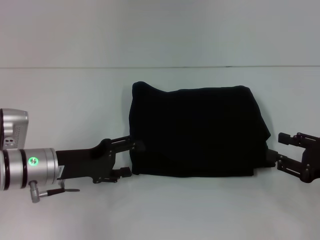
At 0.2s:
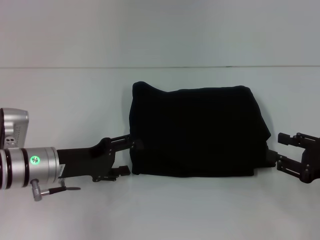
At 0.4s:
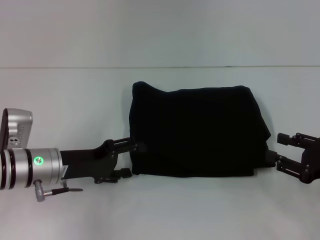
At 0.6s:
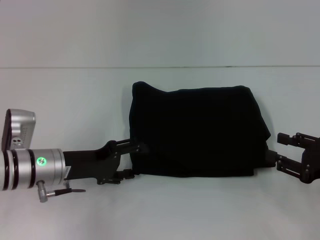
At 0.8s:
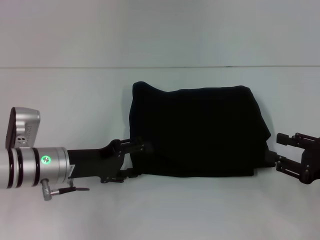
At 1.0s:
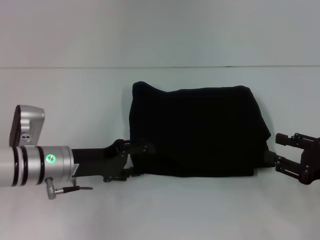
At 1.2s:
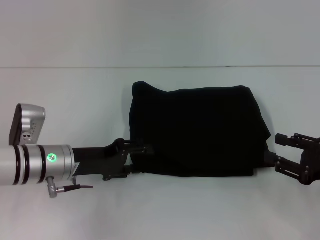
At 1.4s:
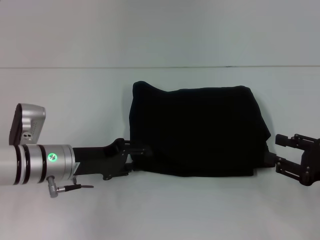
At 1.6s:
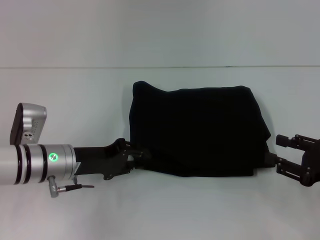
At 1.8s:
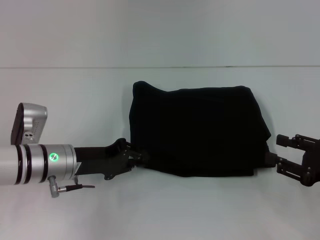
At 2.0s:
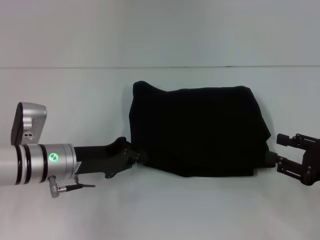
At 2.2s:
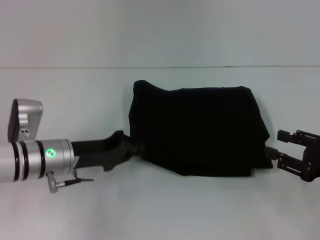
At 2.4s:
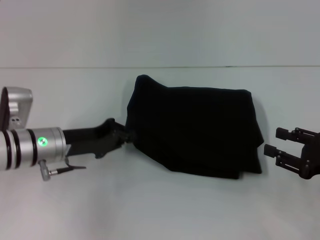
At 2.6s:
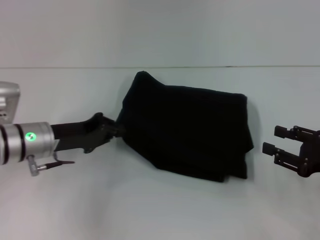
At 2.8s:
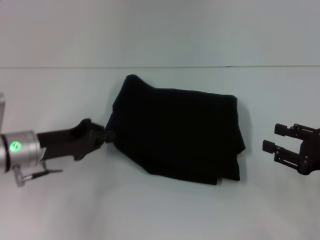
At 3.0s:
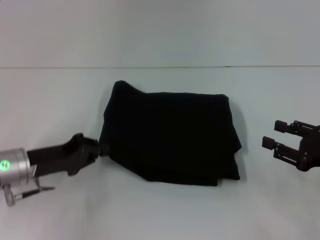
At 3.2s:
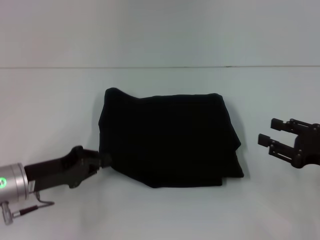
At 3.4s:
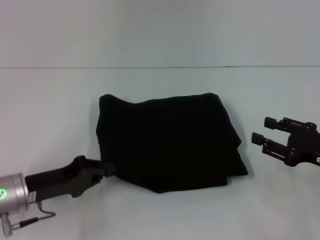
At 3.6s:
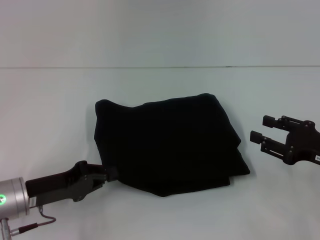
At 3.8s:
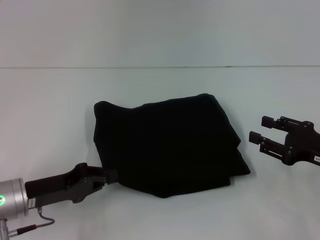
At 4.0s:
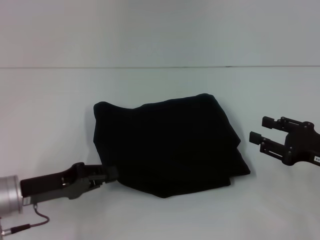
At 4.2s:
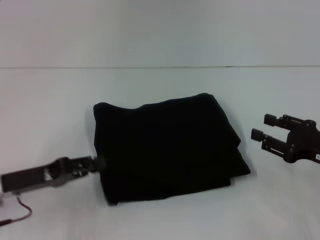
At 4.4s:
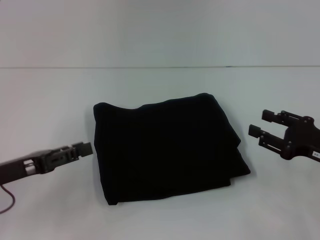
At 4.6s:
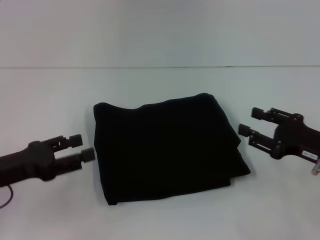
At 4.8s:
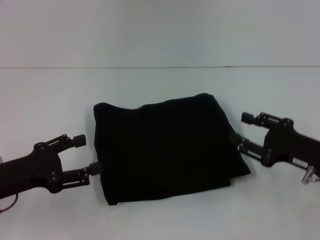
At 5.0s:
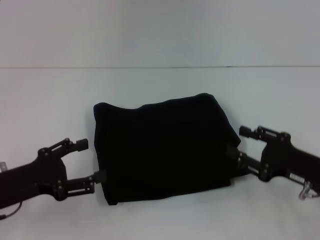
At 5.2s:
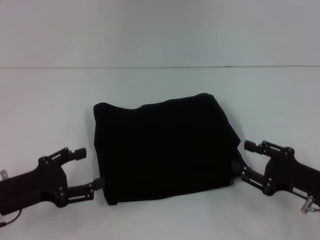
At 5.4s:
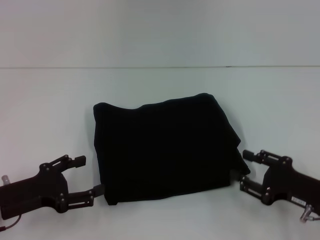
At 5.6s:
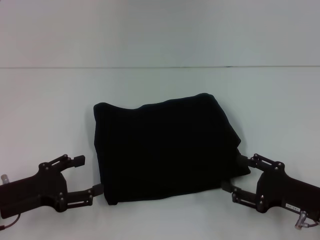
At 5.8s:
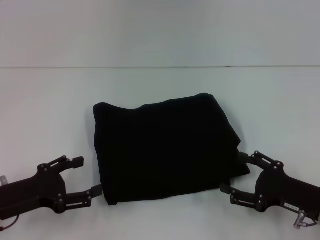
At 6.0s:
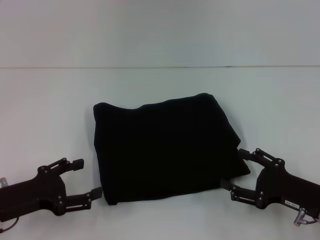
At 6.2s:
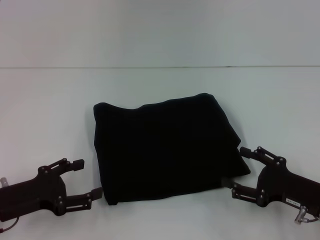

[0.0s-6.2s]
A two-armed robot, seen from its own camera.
0.0s to 1.6s: The left gripper closes.
1.6s to 3.2s: The left gripper travels to the left by roughly 5 cm, and closes its fingers.
3.2s to 4.6s: The left gripper moves approximately 5 cm, and opens its fingers.
4.6s to 6.2s: The left gripper opens up. Meanwhile the right gripper ends up approximately 5 cm from where it was.

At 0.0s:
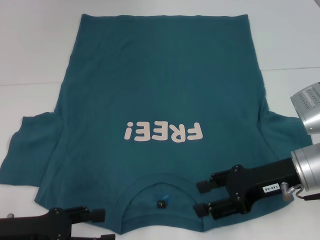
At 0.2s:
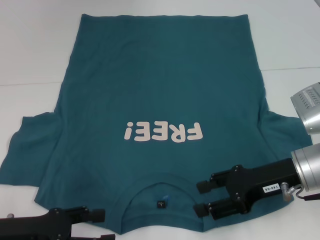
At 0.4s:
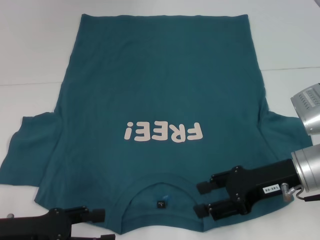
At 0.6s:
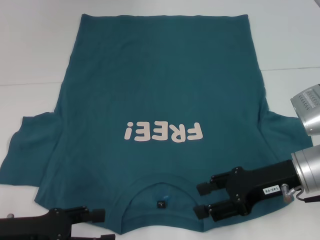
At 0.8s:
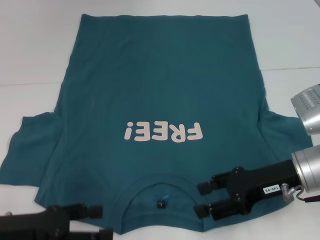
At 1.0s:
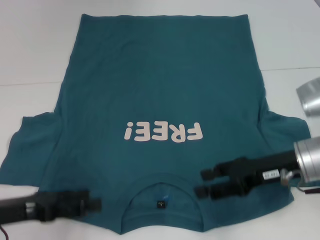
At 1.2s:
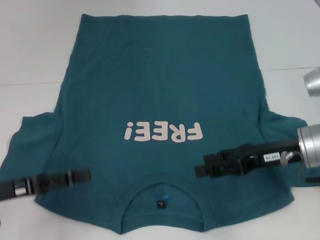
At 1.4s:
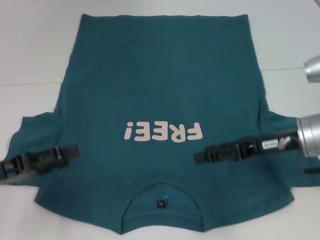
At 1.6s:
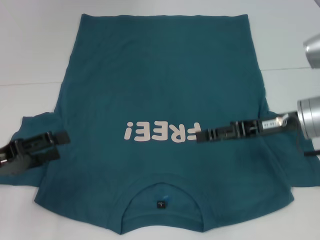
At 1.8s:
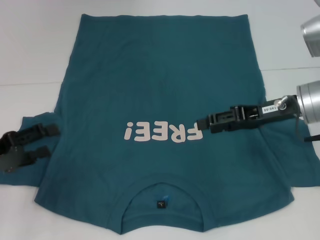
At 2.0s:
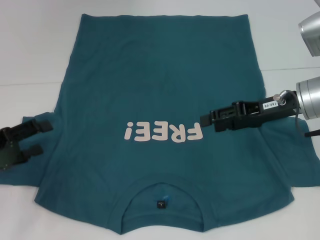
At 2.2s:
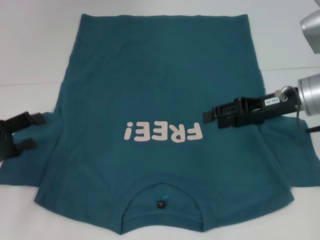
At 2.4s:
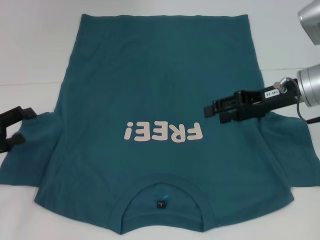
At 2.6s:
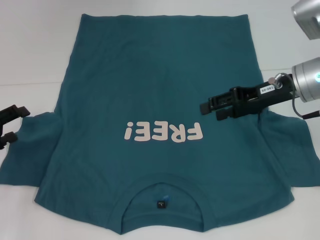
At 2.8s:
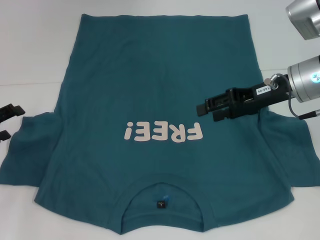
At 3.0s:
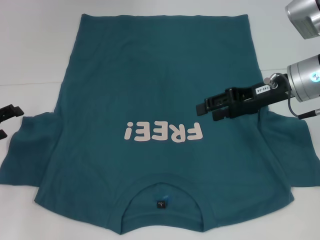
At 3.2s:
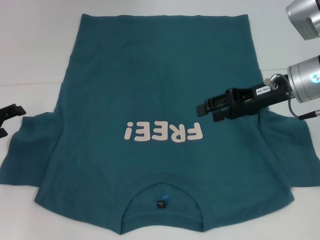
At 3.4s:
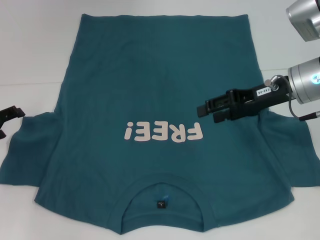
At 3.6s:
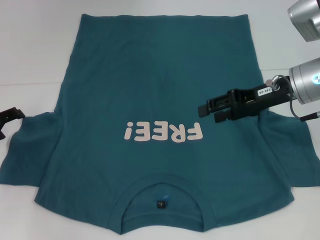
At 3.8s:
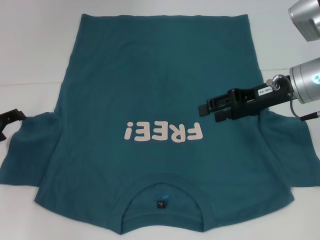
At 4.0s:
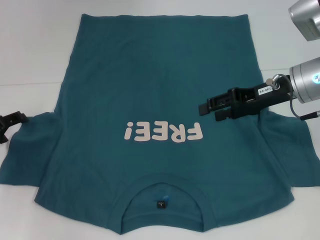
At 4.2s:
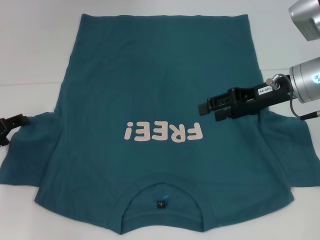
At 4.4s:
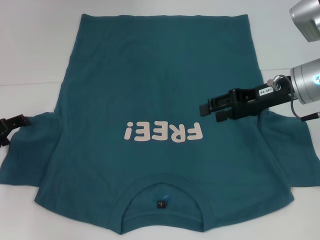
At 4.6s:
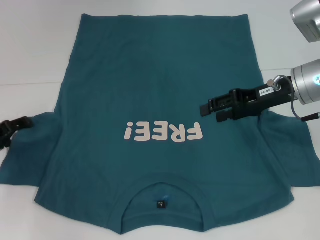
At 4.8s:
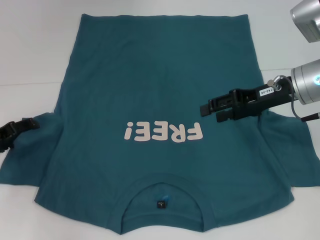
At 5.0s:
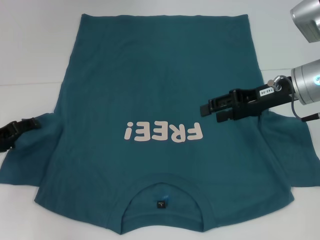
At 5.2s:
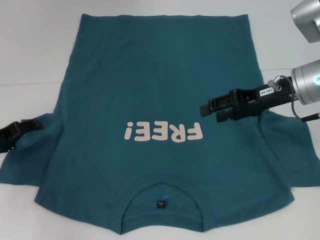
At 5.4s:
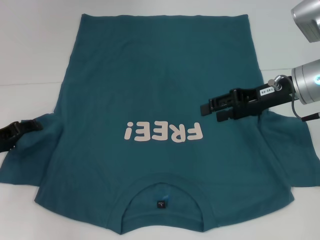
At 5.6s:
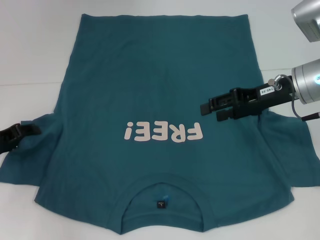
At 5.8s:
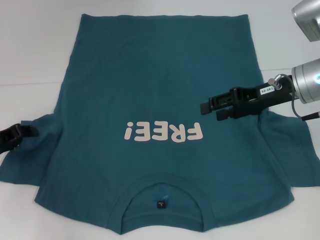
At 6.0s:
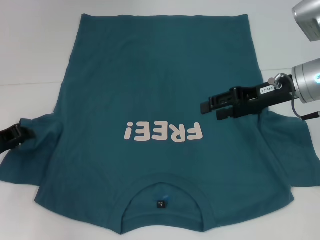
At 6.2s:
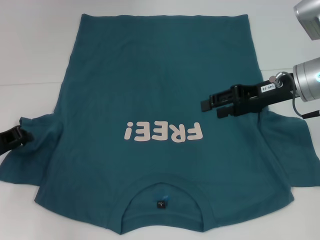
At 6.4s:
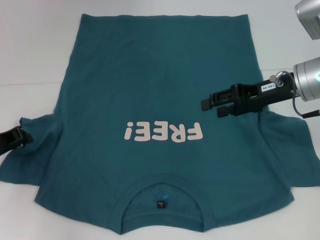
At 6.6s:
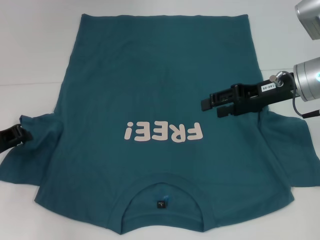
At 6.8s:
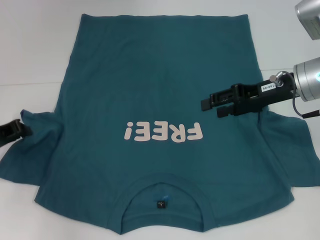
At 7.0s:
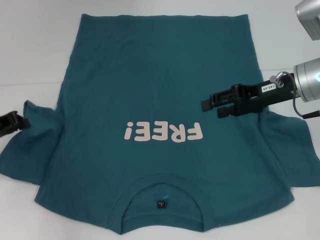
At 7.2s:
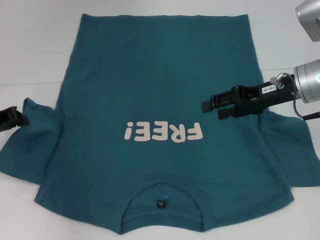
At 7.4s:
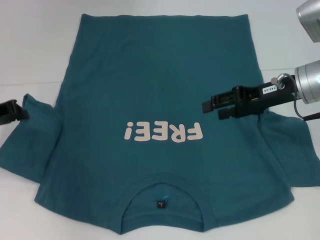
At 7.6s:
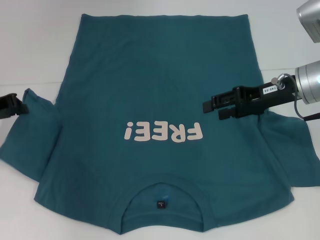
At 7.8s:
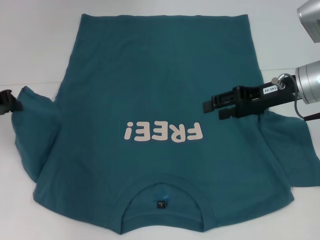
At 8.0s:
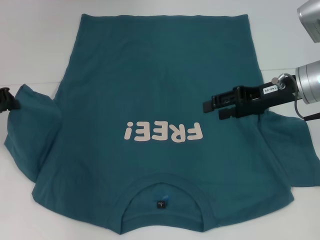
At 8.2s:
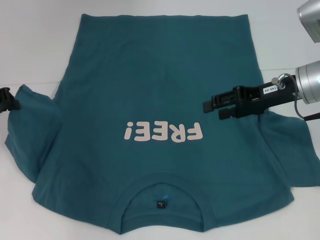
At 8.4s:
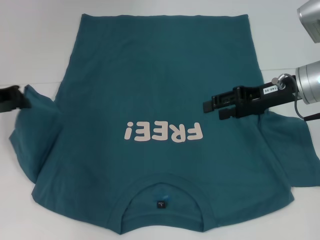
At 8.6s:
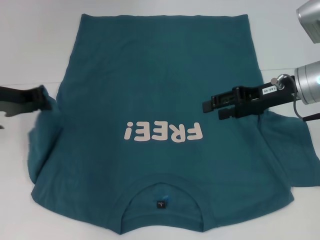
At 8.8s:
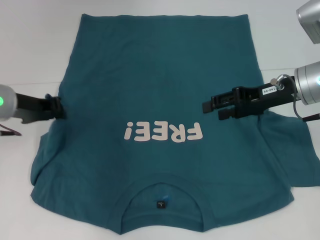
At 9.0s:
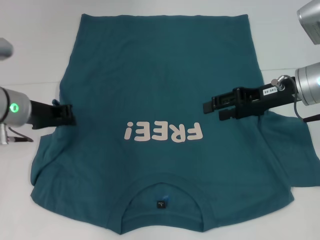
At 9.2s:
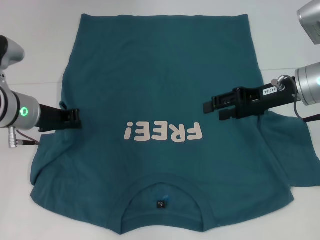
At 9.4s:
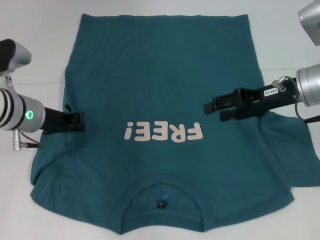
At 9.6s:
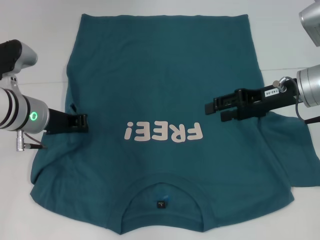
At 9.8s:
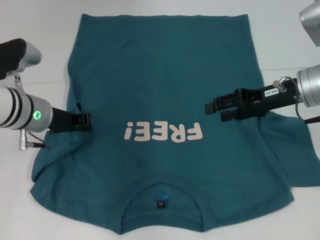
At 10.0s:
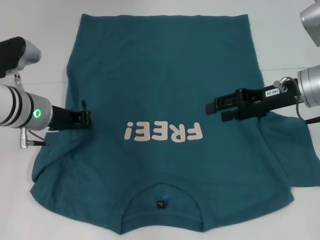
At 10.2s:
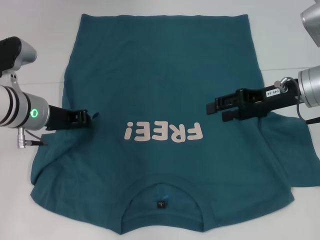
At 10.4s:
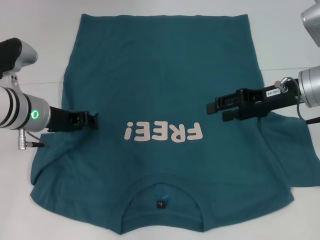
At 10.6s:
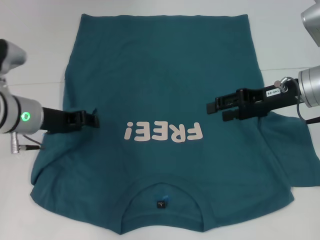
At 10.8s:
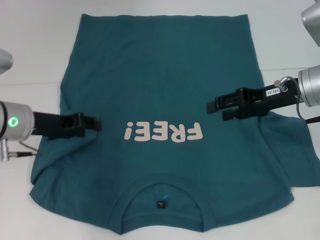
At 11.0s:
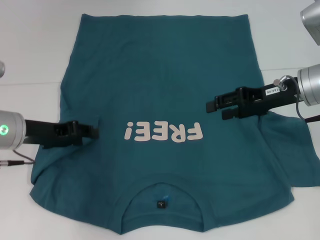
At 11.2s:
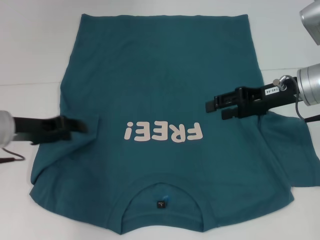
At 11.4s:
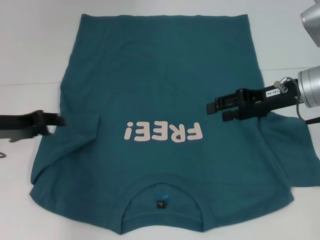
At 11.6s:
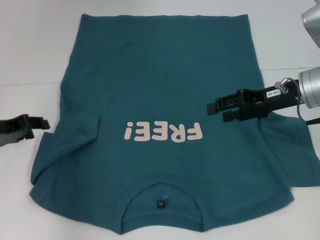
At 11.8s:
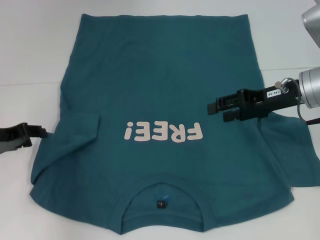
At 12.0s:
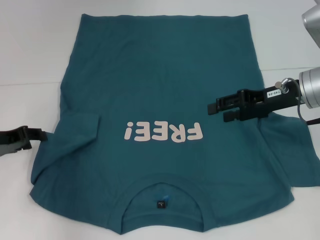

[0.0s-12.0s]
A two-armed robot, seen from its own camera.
0.0s to 1.6s: The right gripper shifts approximately 5 cm forward. The left gripper moves roughly 5 cm.
1.6s to 3.0s: The right gripper shifts by roughly 5 cm. The left gripper moves forward, approximately 5 cm.
3.0s to 4.4s: There are only small adjustments of the grippers.
4.4s to 6.0s: The left gripper closes.
6.0s to 7.6s: The left gripper heads upward, covering about 5 cm, and closes.
7.6s to 9.0s: The left gripper goes roughly 10 cm to the right.
9.0s to 10.4s: The grippers make only small movements.
10.4s to 12.0s: The left gripper moves to the left, roughly 10 cm.

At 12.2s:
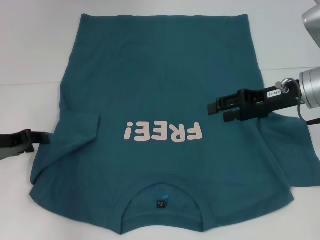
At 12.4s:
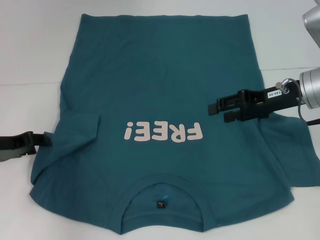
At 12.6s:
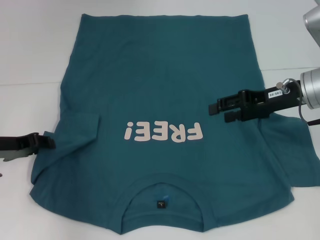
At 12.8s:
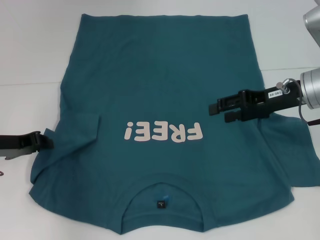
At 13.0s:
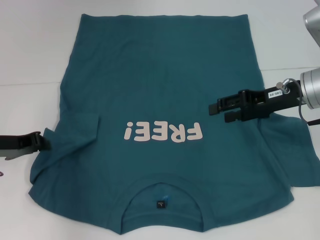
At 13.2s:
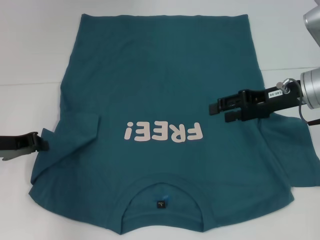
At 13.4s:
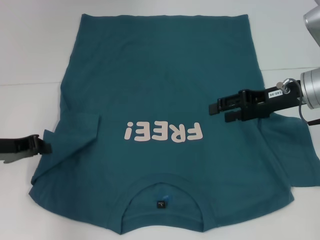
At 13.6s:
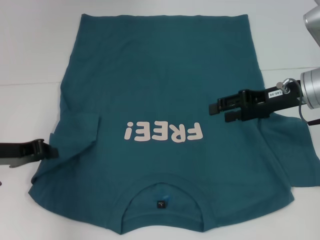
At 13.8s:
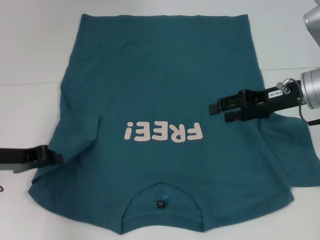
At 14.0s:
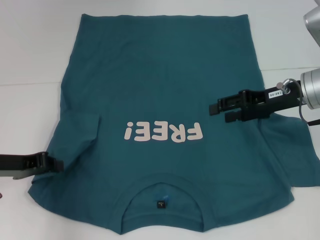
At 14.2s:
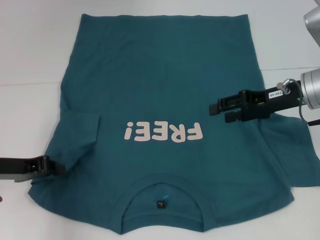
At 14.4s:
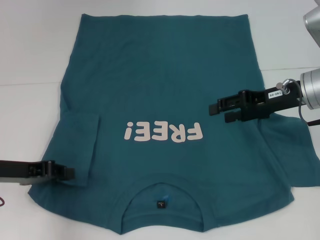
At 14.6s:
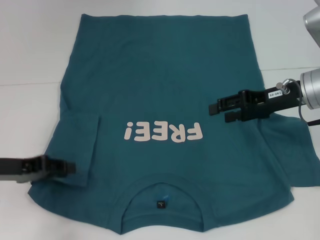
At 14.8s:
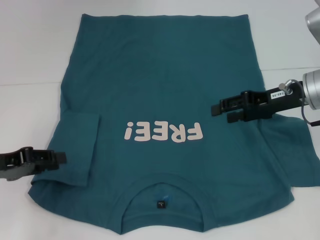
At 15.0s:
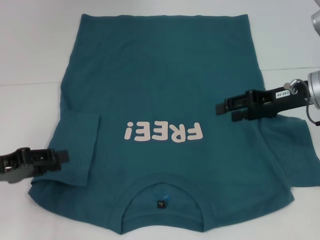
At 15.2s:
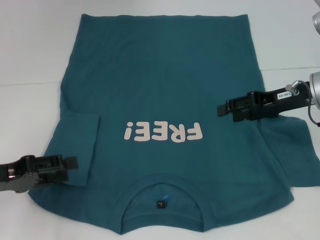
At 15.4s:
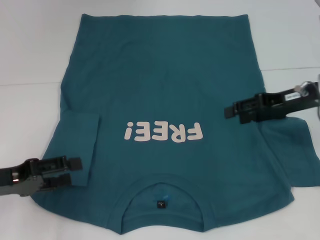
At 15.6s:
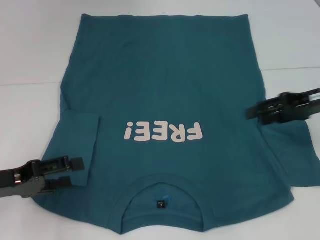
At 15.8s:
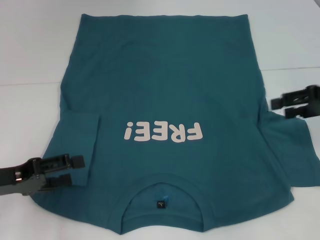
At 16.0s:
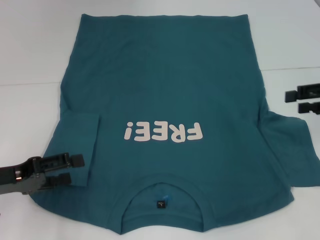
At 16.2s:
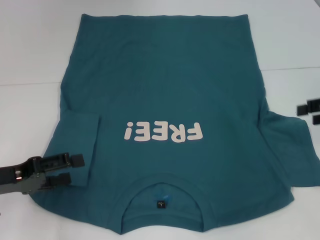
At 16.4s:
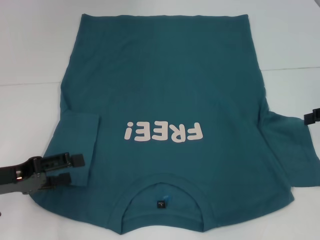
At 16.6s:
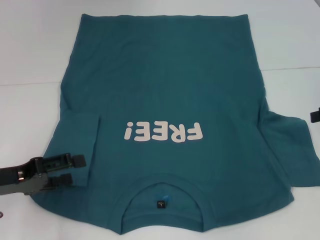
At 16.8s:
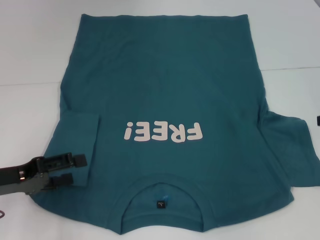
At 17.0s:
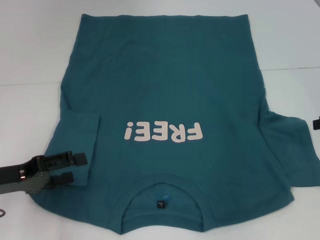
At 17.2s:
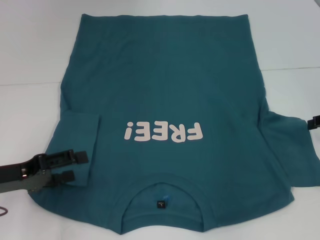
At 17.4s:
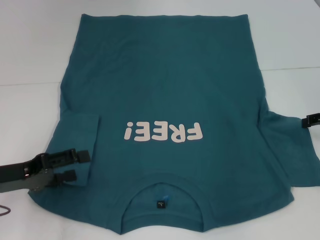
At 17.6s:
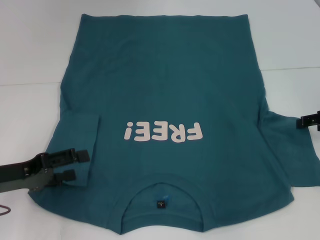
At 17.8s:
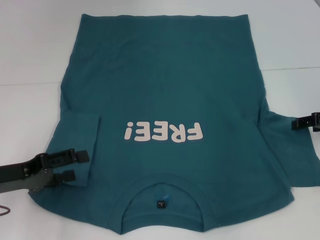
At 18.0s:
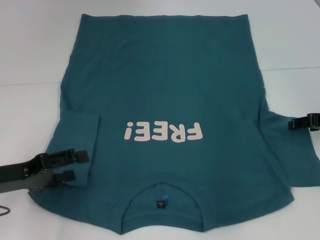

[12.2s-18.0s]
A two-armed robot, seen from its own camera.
Step, 12.2s to 14.6s: Fold the bottom left sleeve with your left hand.
12.2s to 13.6s: The left gripper closes its fingers.
13.6s to 15.0s: The left gripper is displaced backward by roughly 5 cm, and opens up.
15.0s to 16.6s: The left gripper opens. The right gripper goes about 15 cm to the right.
16.6s to 18.0s: The right gripper heads downward, covering approximately 5 cm.
